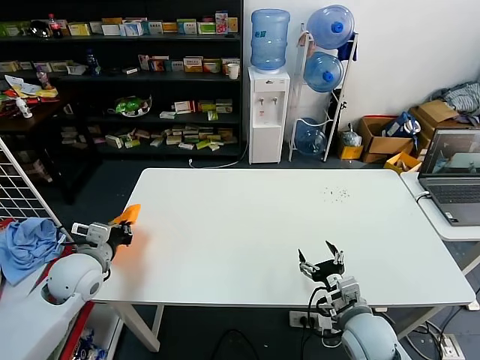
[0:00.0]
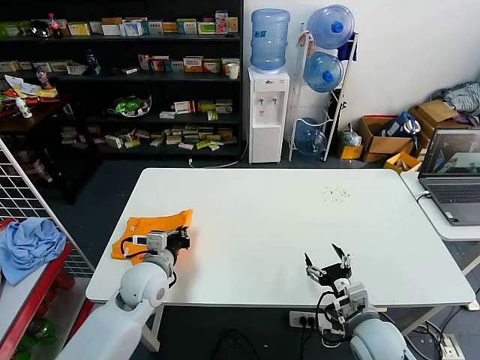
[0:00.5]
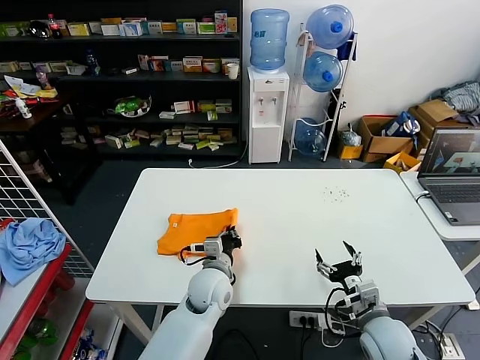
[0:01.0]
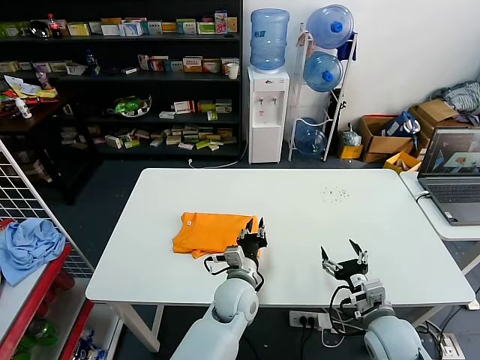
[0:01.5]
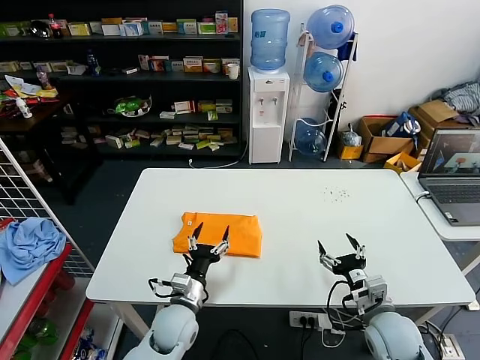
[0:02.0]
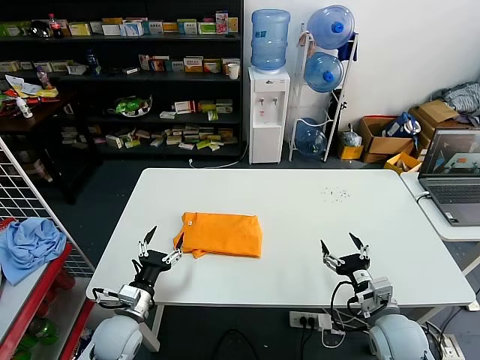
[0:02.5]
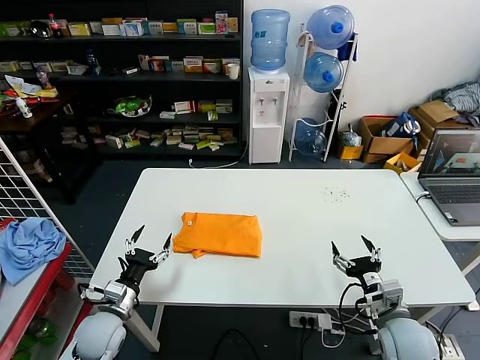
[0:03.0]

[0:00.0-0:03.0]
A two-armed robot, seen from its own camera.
Task of the whole recording: fold and organize the clothes.
0:00.0 to 0:01.5: The left gripper travels to the right by roughly 35 cm; the right gripper shifts about 5 cm to the right.
0:01.5 to 0:03.0: The left gripper shifts roughly 30 cm to the left, and opens up.

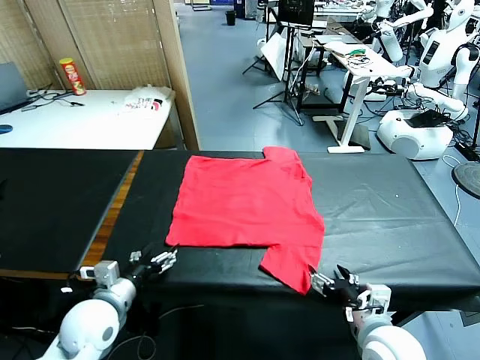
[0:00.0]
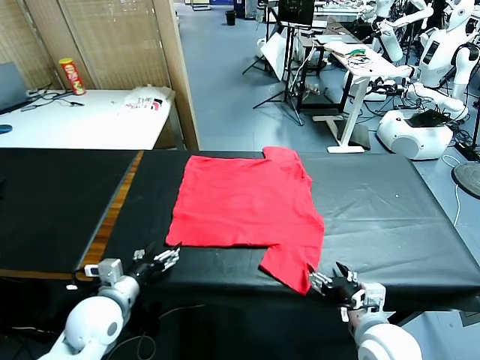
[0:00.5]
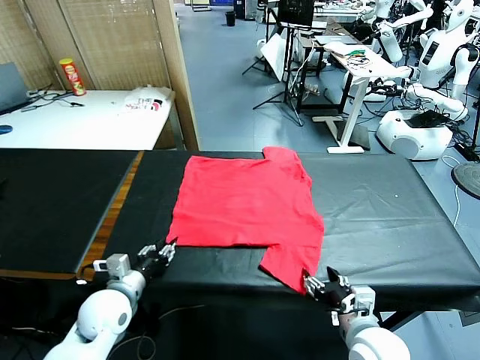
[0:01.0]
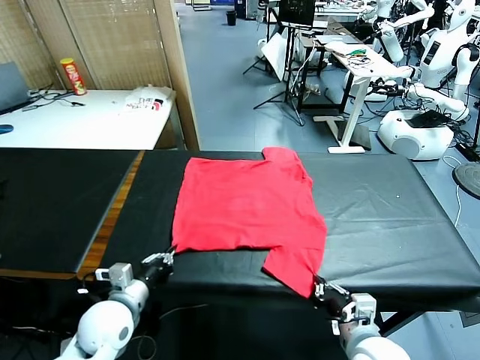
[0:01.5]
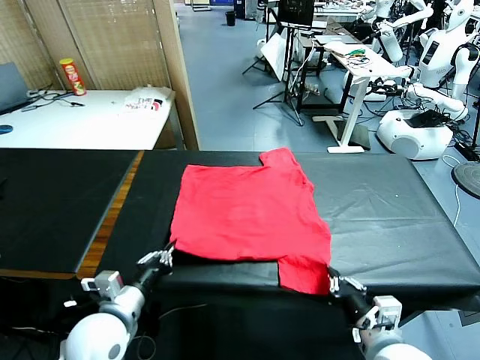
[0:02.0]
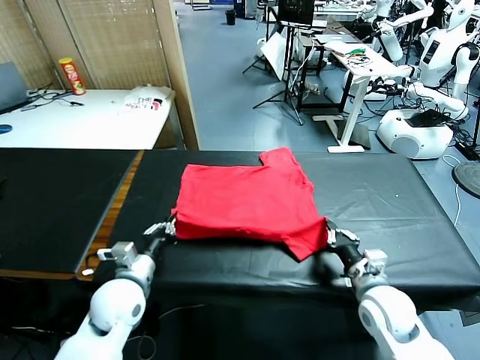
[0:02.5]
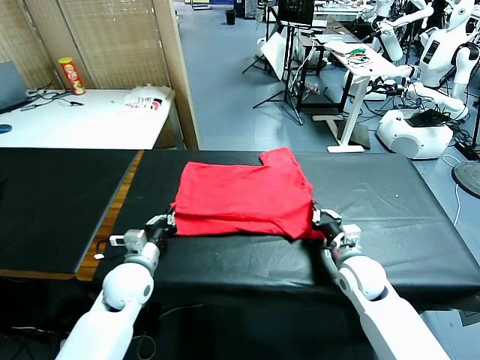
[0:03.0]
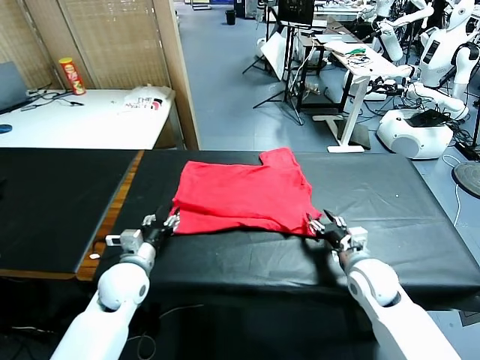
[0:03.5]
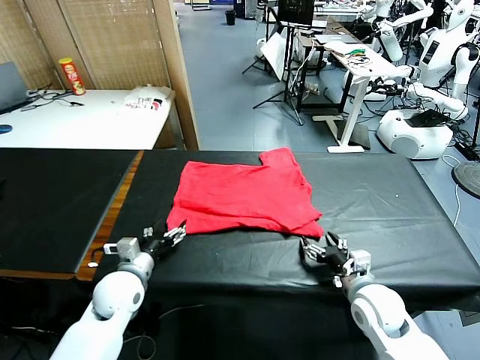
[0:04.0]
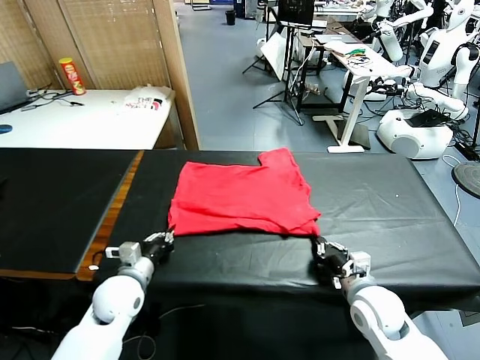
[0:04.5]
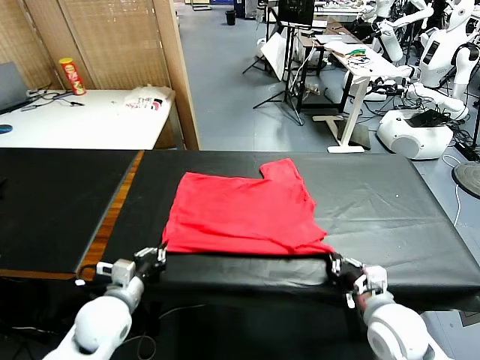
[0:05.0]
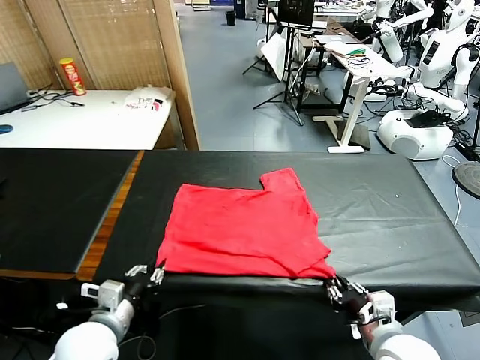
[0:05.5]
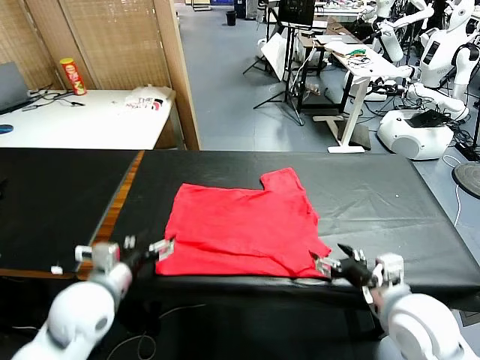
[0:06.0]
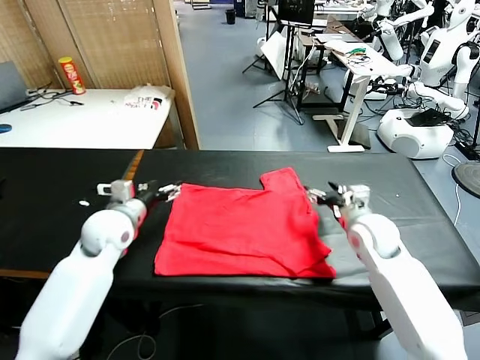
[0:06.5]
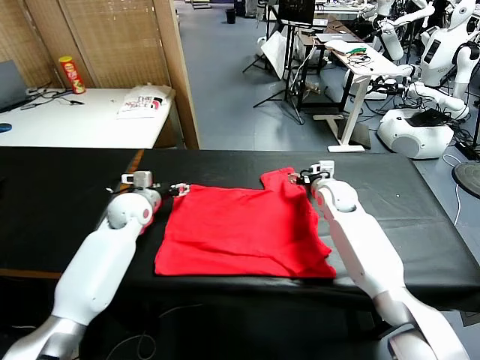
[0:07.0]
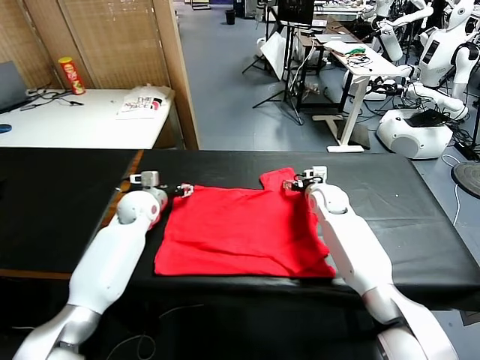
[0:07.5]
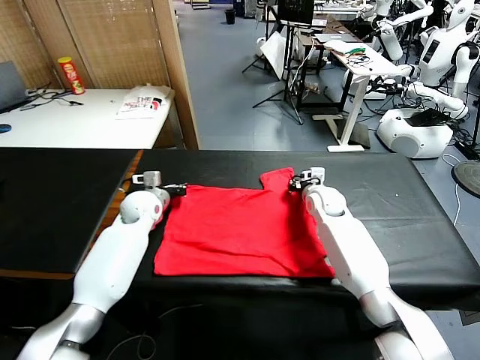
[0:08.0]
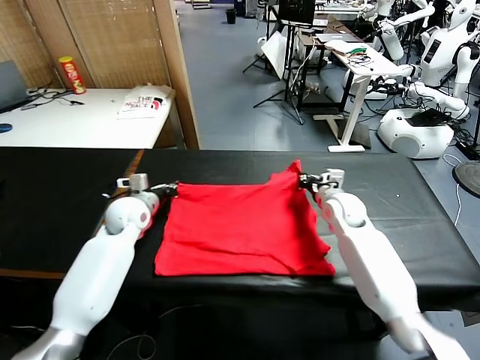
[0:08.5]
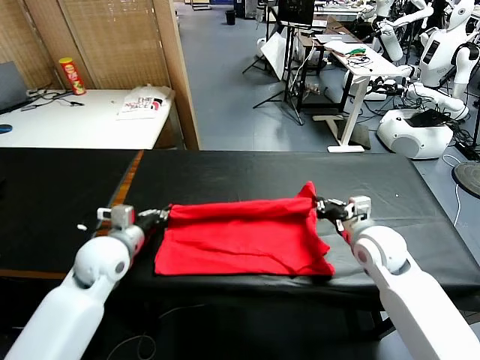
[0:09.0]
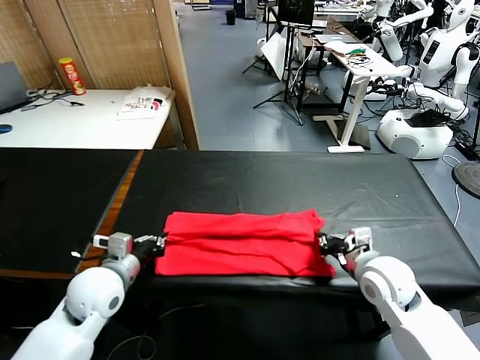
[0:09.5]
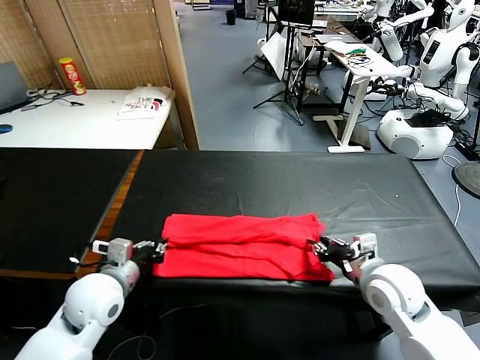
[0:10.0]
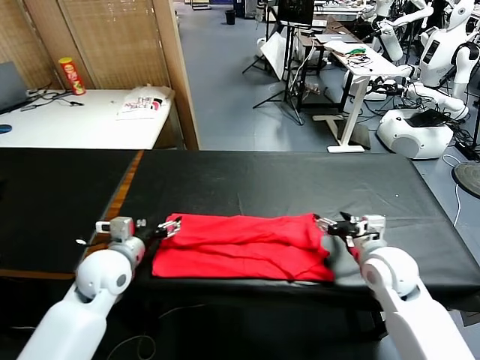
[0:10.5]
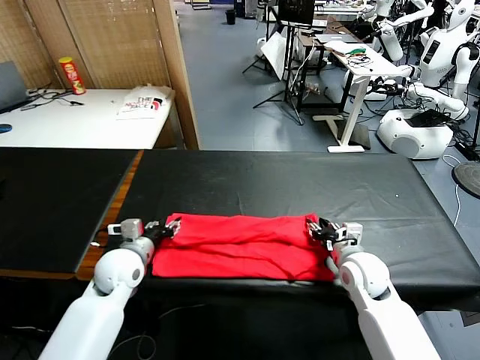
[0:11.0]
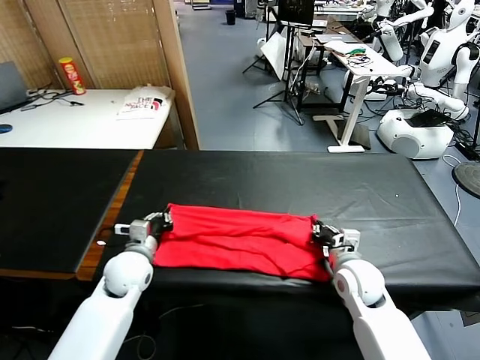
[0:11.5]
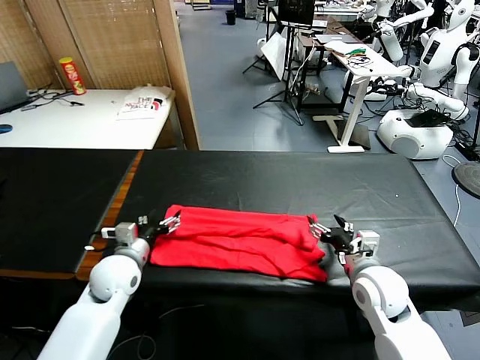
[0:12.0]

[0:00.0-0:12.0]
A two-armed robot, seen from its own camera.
Task of the whole recording: fold and organize the clothes.
Step, 0:00.0 to 0:01.5: use both grippers simultaneously to clamp the lower edge of the clothing fabric.
Step, 0:02.0 to 0:03.5: use both grippers to drag the lower edge of the fabric forward and fold it over the upper edge.
Step, 0:04.0 to 0:05.5: Drag the clothes downward with both gripper.
Step, 0:06.0 to 0:07.5: use both grippers simultaneously to clamp the upper edge of the clothing fabric.
Step, 0:08.5 to 0:10.0: use both grippers to drag the upper edge of the fabric backward and fold it over the lower edge.
0:02.0 to 0:04.0: The right gripper goes forward and returns, approximately 10 cm each way, and opens, then closes again, while the left gripper heads forward and downward, covering roughly 10 cm, and opens up.
0:04.0 to 0:06.0: Both grippers move upward, about 10 cm. The right gripper reaches roughly 10 cm backward, then returns, and opens its fingers. Meanwhile the left gripper reaches approximately 10 cm backward, then returns, and closes and opens again.
0:06.0 to 0:08.0: Both grippers move forward, about 20 cm. The left gripper closes, while the right gripper closes.
0:08.0 to 0:10.0: Both grippers move backward, roughly 25 cm. The right gripper opens.
0:10.0 to 0:12.0: The right gripper closes, then reopens, while the left gripper heads downward and forward, covering some 10 cm, and opens its fingers.

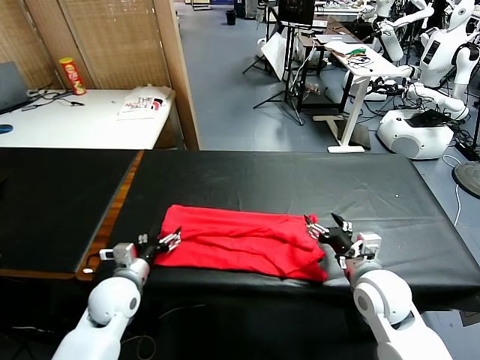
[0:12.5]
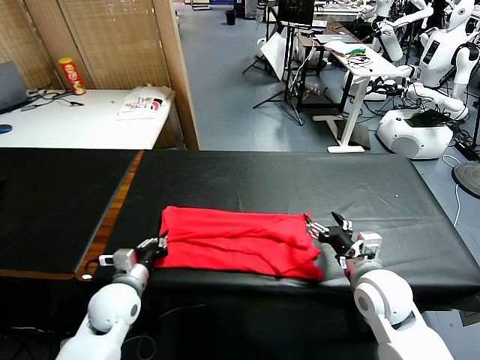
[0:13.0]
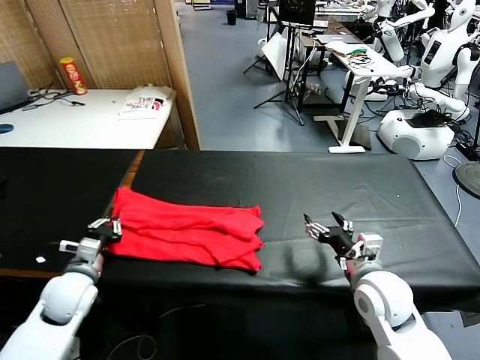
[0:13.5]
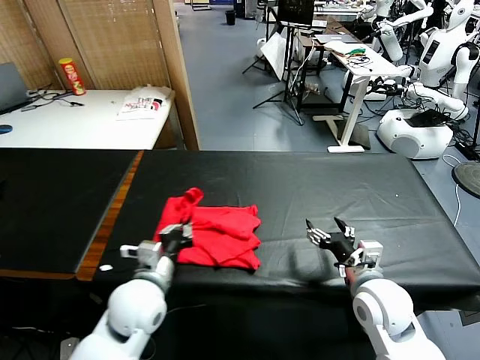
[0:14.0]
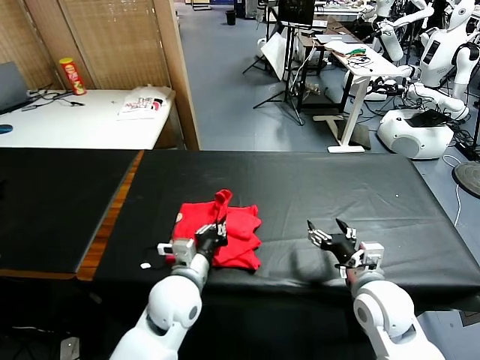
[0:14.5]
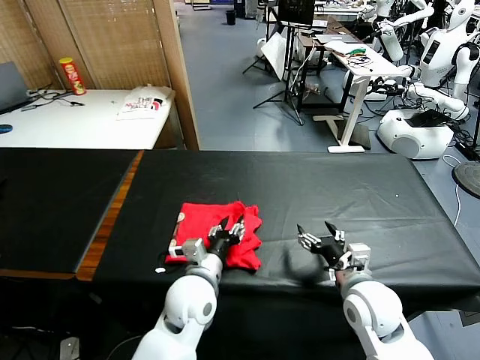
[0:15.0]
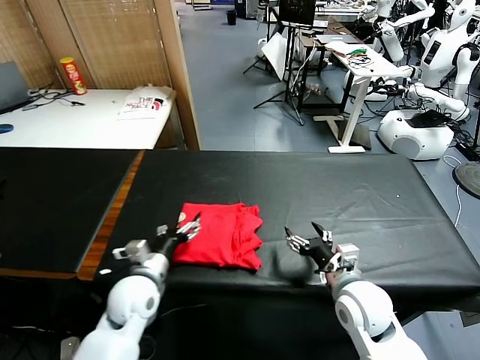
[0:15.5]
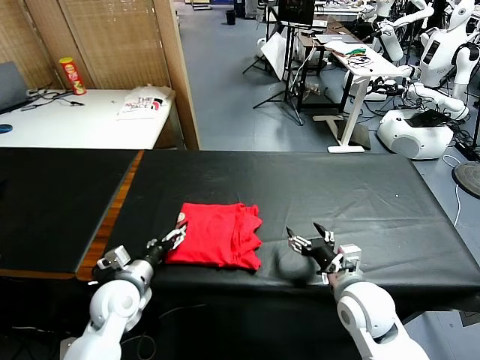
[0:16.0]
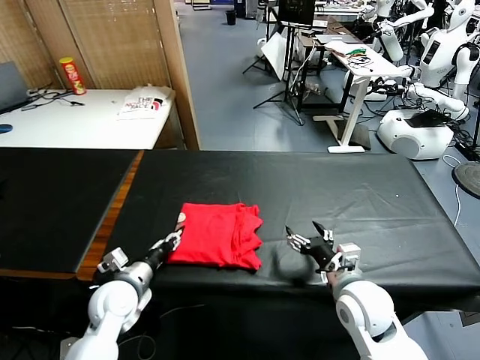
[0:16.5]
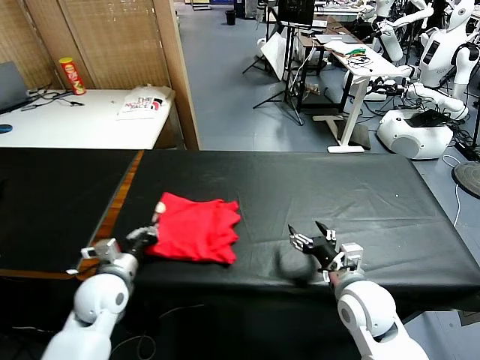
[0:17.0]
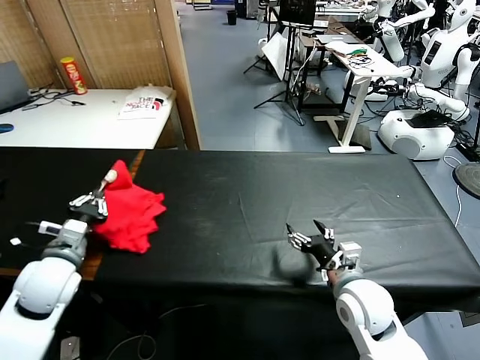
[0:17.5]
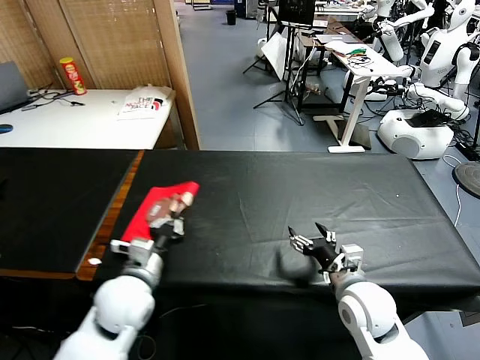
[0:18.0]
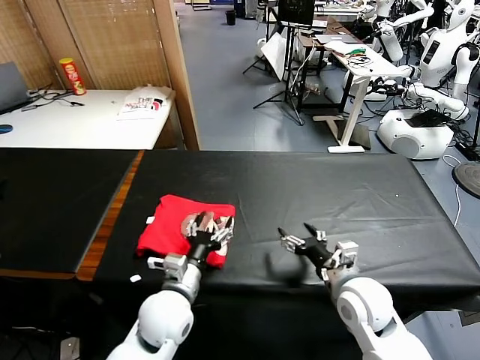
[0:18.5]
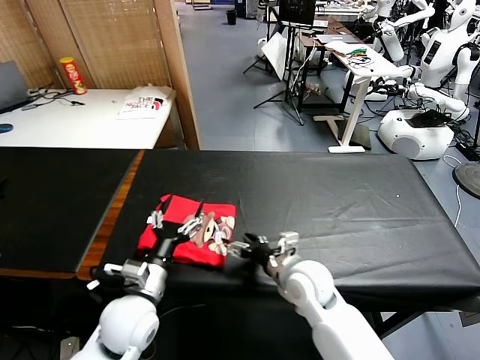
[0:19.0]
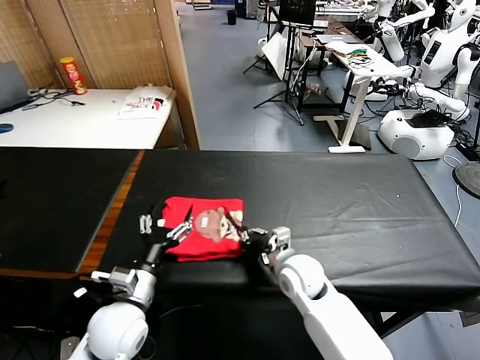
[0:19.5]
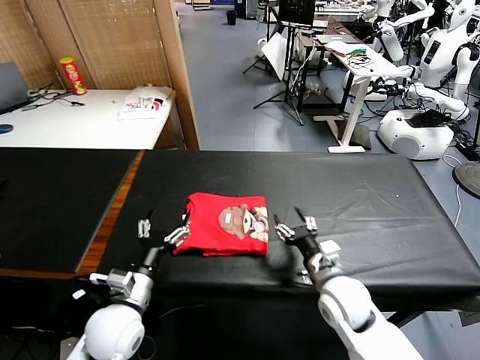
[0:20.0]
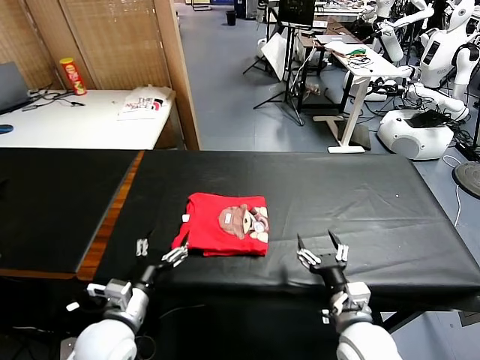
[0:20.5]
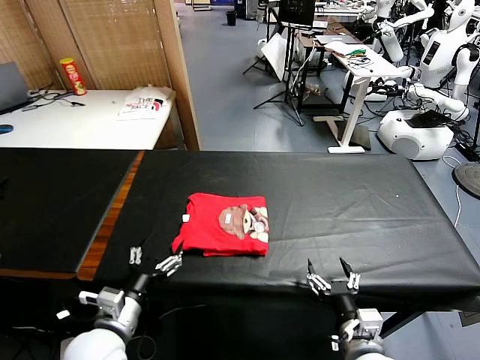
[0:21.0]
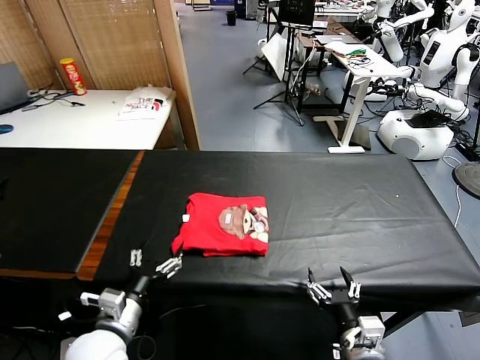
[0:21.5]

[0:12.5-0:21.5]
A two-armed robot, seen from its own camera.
Task of the whole recording: fold and organize the clothes.
Step, 0:13.5 to 0:15.0: use the left gripper to drag the left edge of the fabric to the left and folds it over the right edge.
Step, 0:15.5 to 0:18.5: Flip the folded clothes over with left gripper.
Step, 0:19.0 to 0:20.0: Drag the clothes to the center of the table.
0:12.5 to 0:14.5: The left gripper is displaced to the right by some 15 cm, and closes up.
0:14.5 to 0:17.0: The left gripper moves to the left, about 20 cm, and opens, then closes again.
0:17.0 to 0:19.5: The left gripper goes left and right, approximately 20 cm each way, reversing 2 times, and opens its fingers. The right gripper is displaced to the left and forward by about 15 cm, and closes up.
0:19.5 to 0:21.5: The right gripper shifts some 25 cm backward and to the right, and opens its fingers. Meanwhile the left gripper moves some 5 cm.
